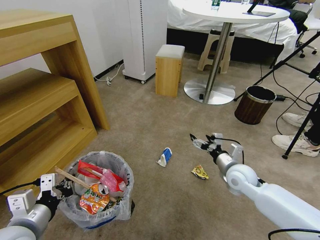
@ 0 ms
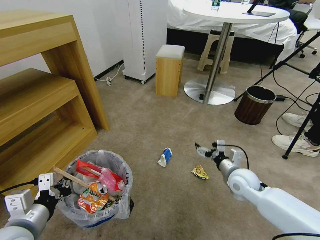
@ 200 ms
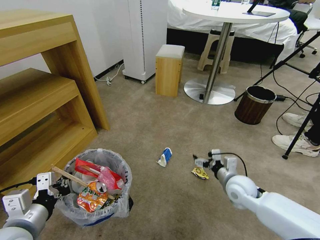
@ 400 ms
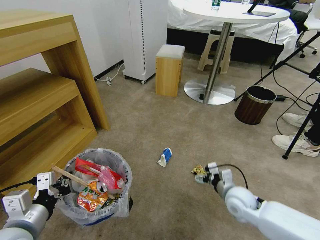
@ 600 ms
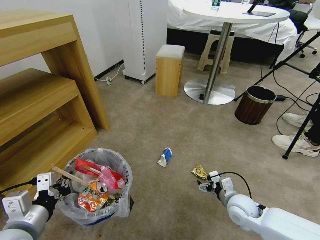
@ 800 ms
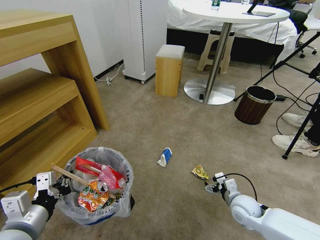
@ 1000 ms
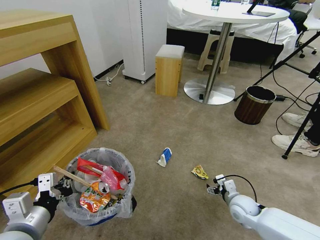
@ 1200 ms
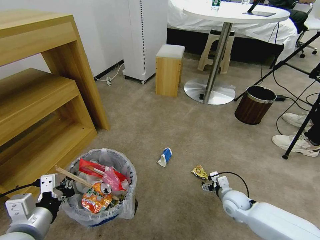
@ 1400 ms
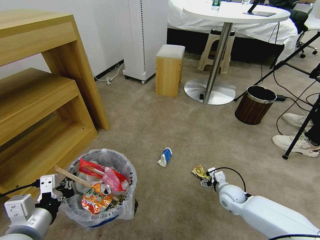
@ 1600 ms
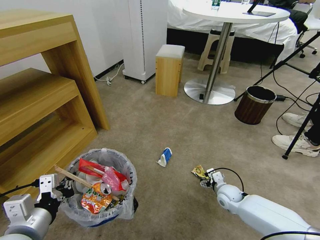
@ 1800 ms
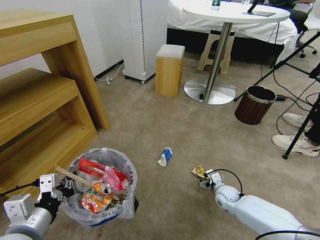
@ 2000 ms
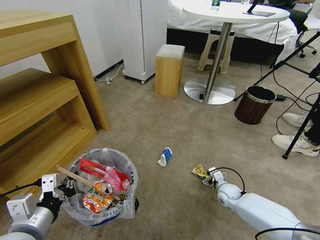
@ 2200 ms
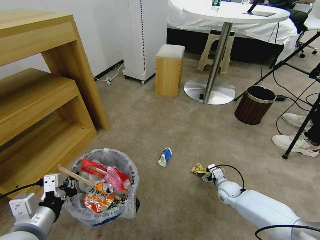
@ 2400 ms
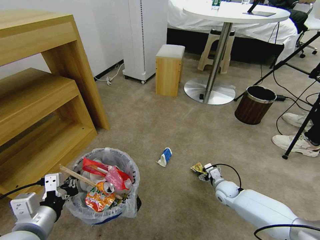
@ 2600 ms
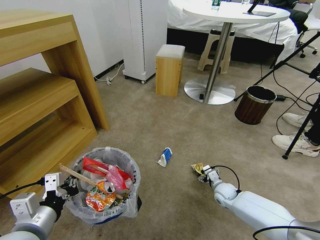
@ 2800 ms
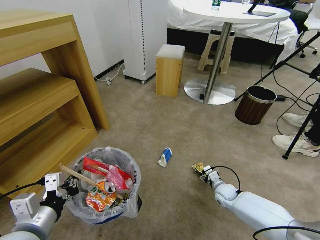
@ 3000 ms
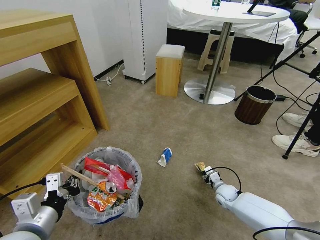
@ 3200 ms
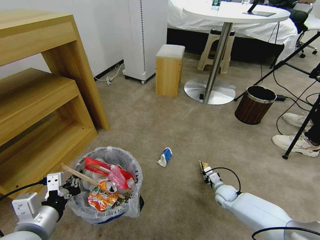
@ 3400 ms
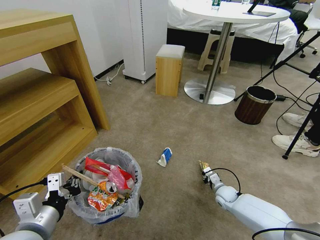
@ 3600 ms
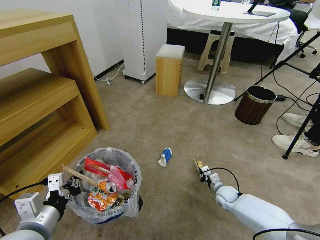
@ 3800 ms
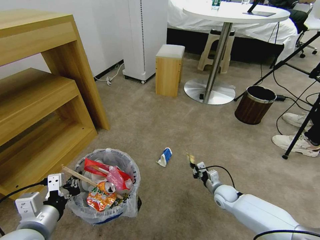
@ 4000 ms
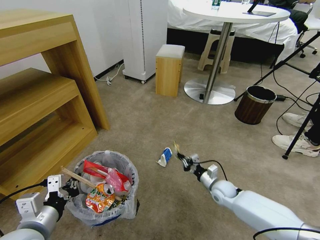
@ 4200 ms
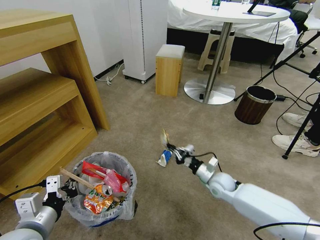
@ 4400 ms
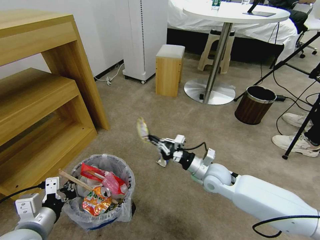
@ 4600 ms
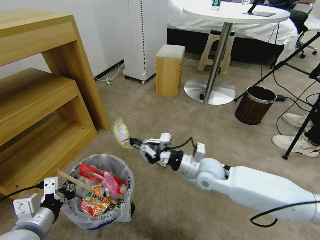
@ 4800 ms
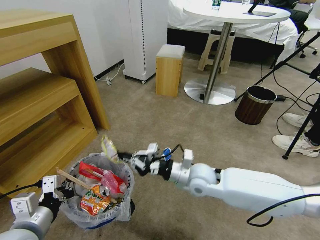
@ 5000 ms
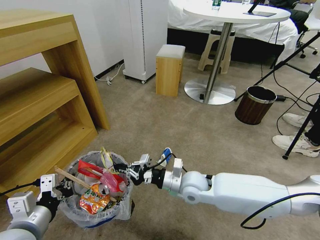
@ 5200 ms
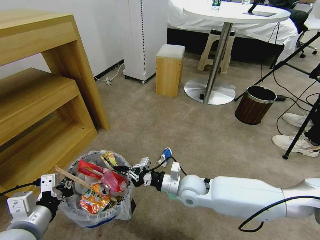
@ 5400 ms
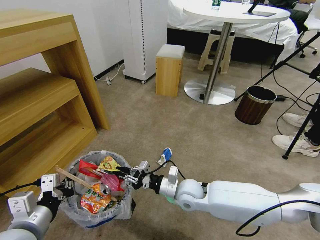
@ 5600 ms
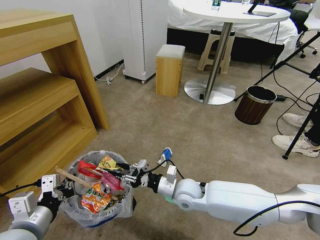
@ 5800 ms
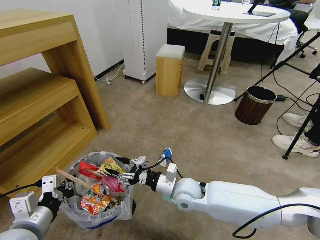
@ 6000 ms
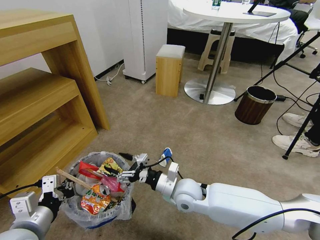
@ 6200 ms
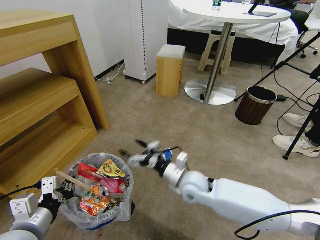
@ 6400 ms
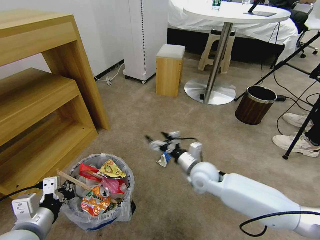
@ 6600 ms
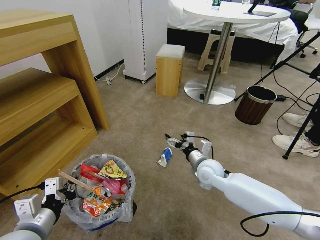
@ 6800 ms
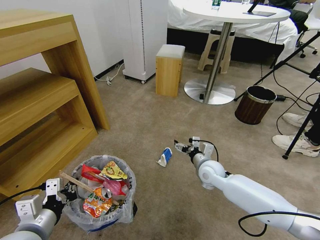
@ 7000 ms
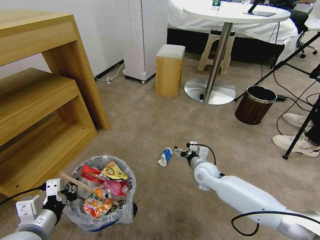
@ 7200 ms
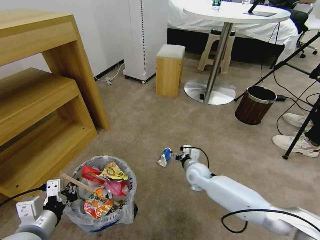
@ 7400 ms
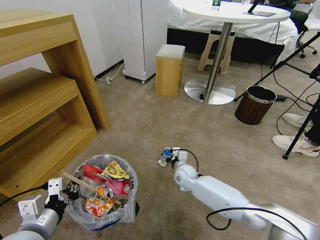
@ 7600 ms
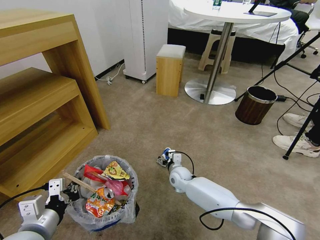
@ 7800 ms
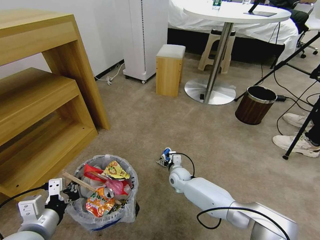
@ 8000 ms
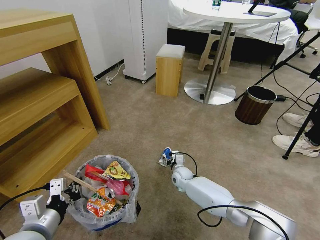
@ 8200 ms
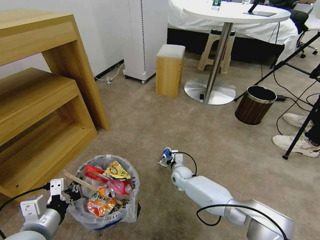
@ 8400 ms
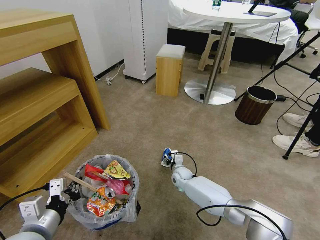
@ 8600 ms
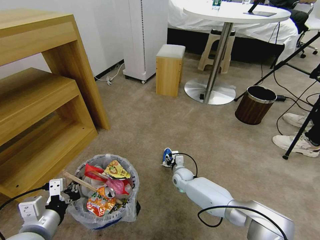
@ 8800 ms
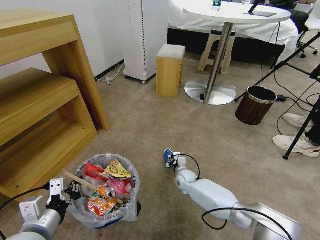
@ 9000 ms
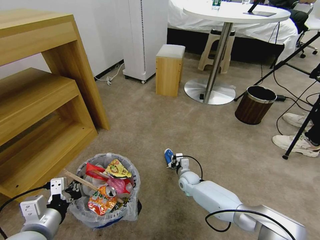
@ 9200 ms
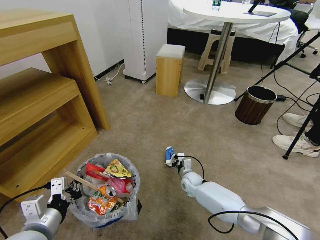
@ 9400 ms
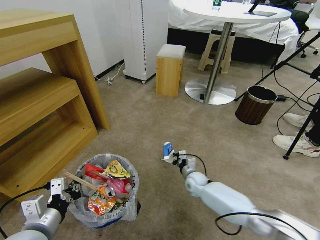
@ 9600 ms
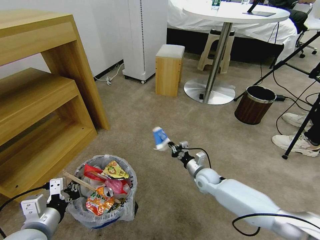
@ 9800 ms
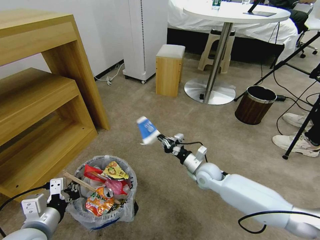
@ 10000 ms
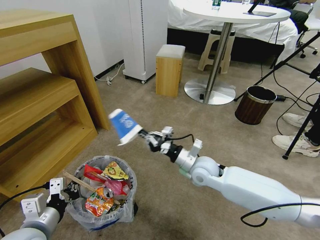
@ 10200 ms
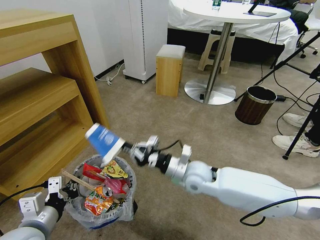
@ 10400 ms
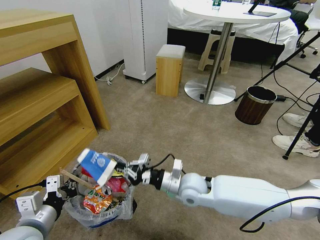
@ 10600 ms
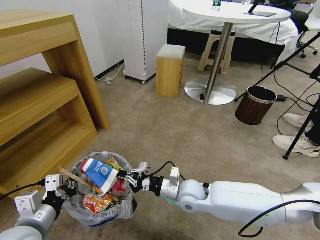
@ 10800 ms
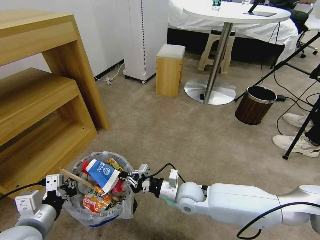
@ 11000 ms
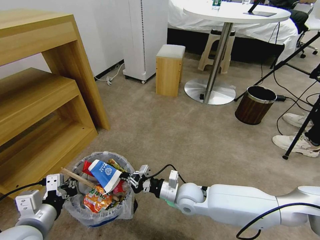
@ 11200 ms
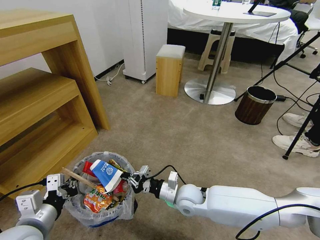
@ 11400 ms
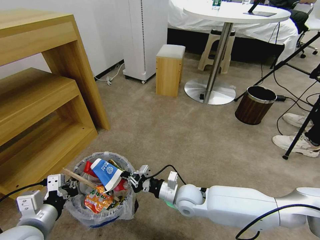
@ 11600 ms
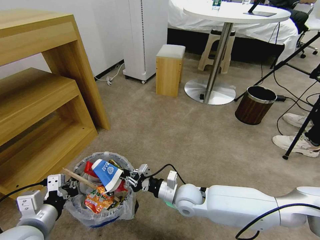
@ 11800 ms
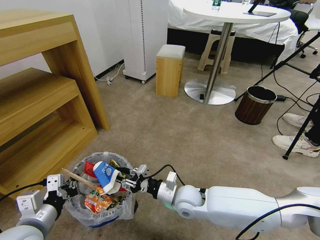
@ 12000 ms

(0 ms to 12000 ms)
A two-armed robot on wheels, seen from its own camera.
Task of the whole recording: Pick up the trash bin and place the garbage on the floor into it.
0 ms - 1600 ms: The right gripper moves downward, approximately 15 cm.
1600 ms - 3000 ms: The right gripper shifts approximately 5 cm downward, and closes its fingers.
3000 ms - 4400 ms: The right gripper travels upward and to the left by roughly 10 cm, and closes up.
4400 ms - 6000 ms: The right gripper is displaced to the left and upward by roughly 20 cm, and opens up.
6000 ms - 7600 ms: The right gripper travels forward and downward by about 15 cm.
7600 ms - 9000 ms: The right gripper travels downward by roughly 5 cm, and closes up.
9000 ms - 10400 ms: The right gripper is displaced upward and backward by some 25 cm, and closes its fingers.
10400 ms - 12000 ms: The right gripper is displaced downward by about 5 cm, and opens.

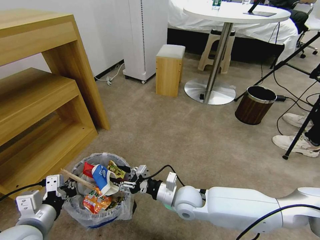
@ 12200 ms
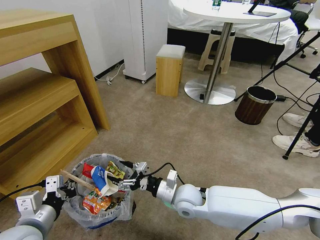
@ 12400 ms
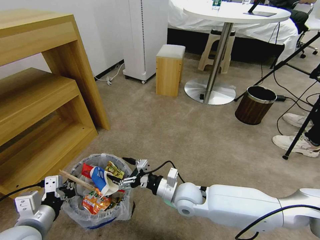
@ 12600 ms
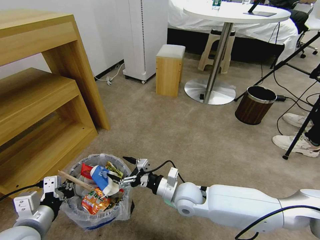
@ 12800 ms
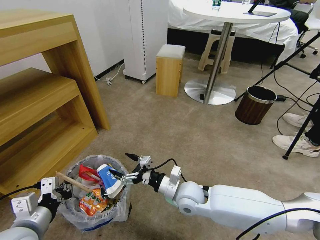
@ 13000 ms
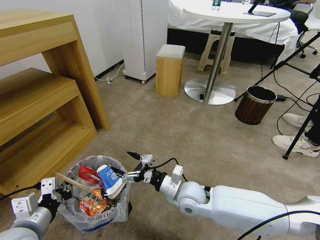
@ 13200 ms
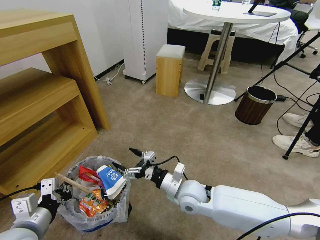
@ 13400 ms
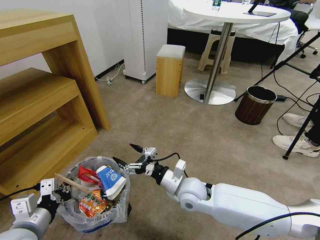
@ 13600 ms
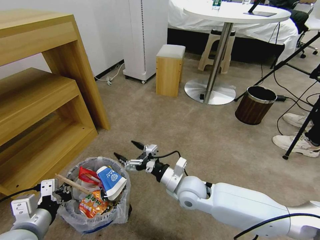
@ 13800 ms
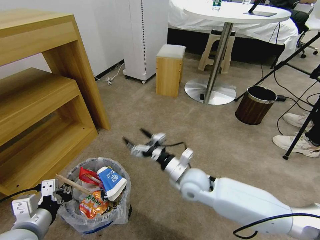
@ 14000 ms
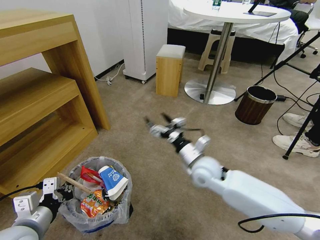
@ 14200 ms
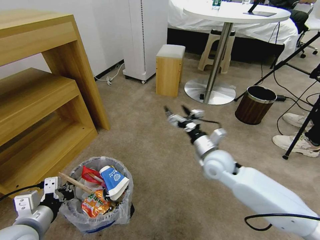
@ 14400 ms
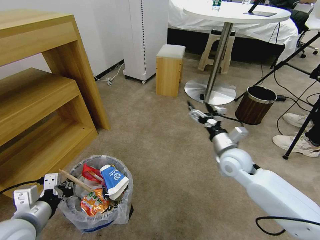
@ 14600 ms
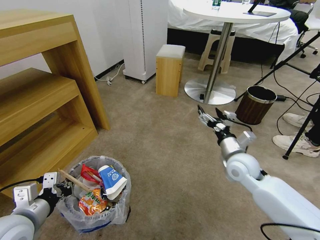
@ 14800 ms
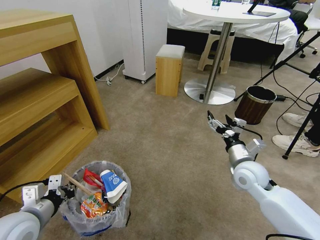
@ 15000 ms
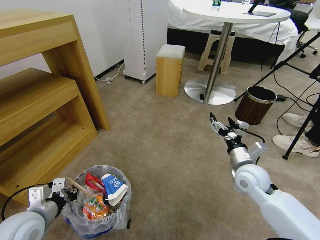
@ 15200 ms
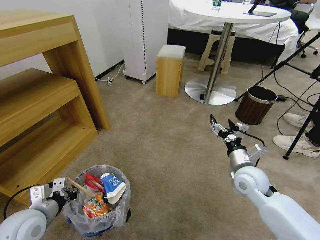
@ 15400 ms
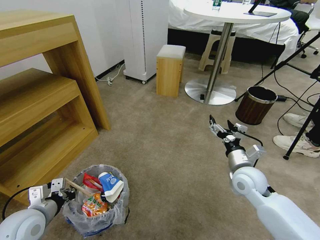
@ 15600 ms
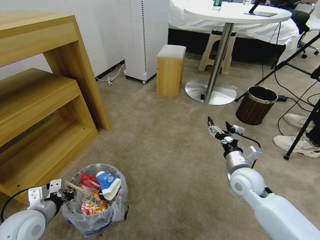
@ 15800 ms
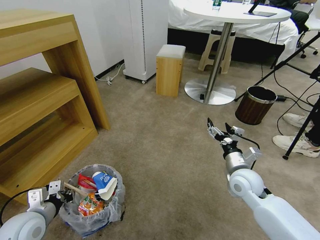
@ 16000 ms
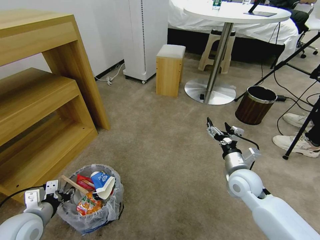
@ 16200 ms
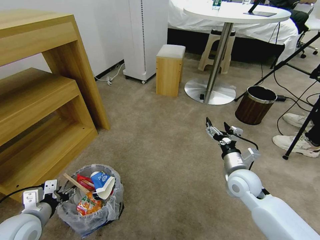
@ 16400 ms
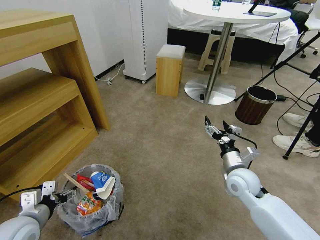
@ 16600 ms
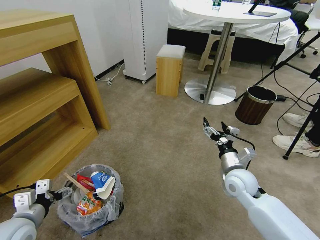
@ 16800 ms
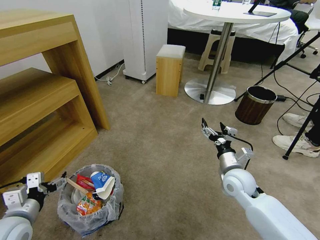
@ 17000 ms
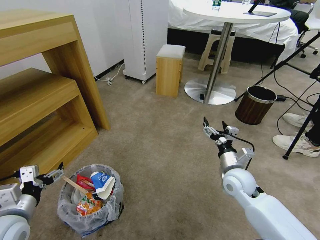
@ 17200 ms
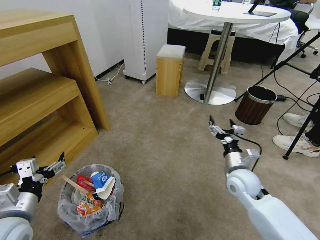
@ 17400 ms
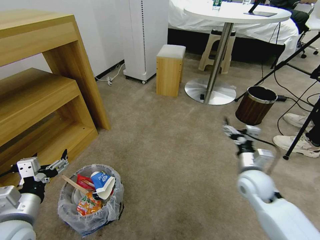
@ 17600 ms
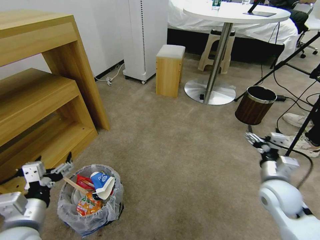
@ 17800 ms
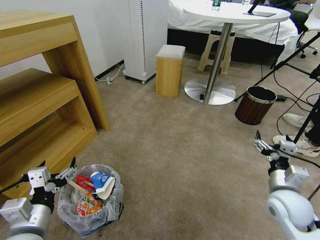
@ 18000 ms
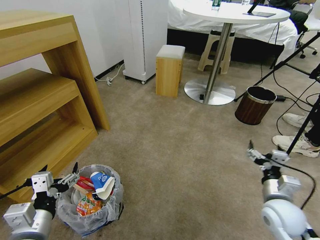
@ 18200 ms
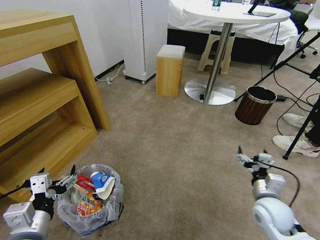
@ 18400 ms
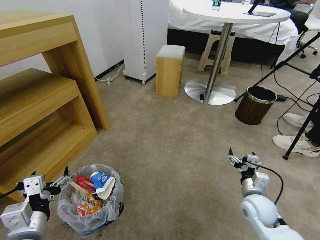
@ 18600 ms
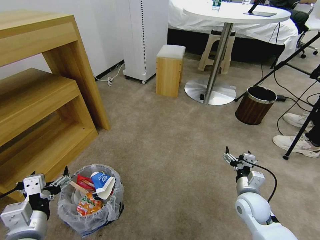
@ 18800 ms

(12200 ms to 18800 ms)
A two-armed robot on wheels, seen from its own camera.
Task of the whole recording: Pick up the trash bin and place the garbage on the floor into it.
12200 ms - 13800 ms: The right gripper opens.
13800 ms - 15400 ms: The left gripper heads forward, covering about 5 cm. Meanwhile the right gripper travels to the right by approximately 20 cm.
15400 ms - 17200 ms: The left gripper opens up.
17200 ms - 18800 ms: The left gripper moves to the right and backward, some 10 cm. Meanwhile the right gripper travels downward and backward by some 10 cm.

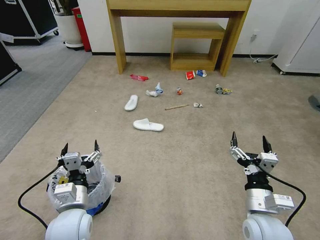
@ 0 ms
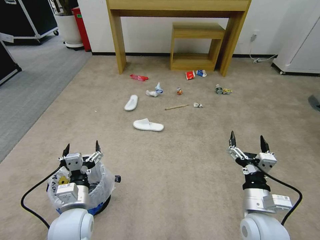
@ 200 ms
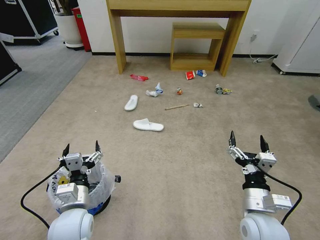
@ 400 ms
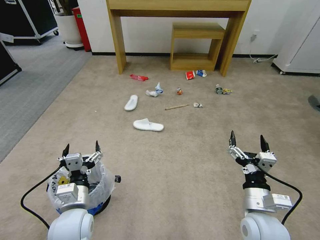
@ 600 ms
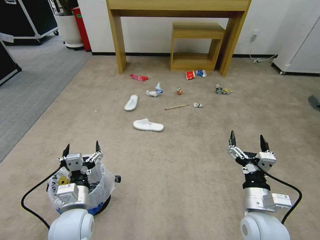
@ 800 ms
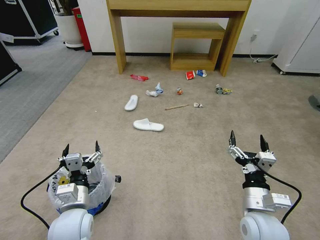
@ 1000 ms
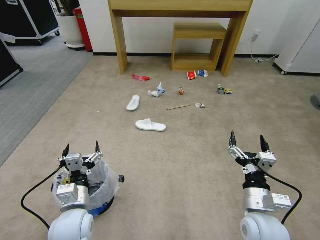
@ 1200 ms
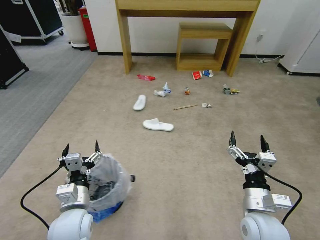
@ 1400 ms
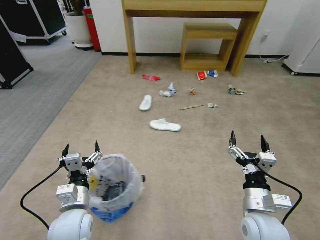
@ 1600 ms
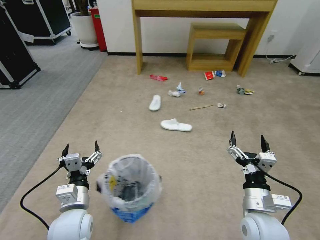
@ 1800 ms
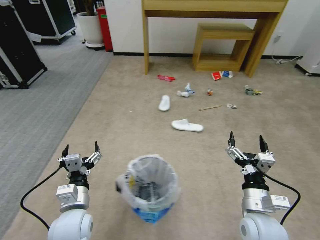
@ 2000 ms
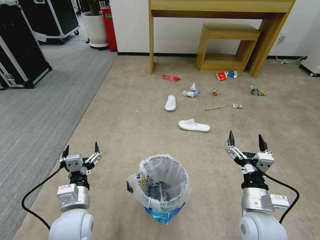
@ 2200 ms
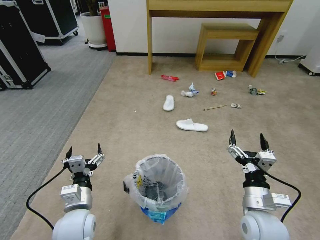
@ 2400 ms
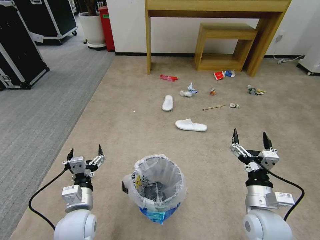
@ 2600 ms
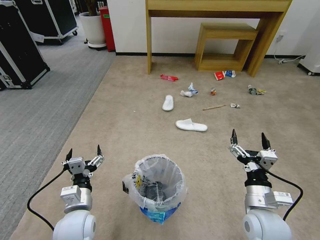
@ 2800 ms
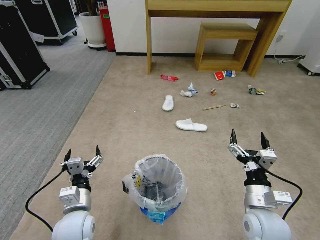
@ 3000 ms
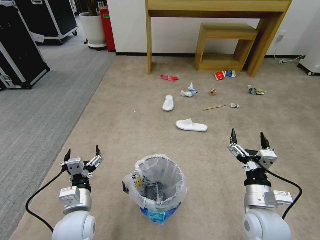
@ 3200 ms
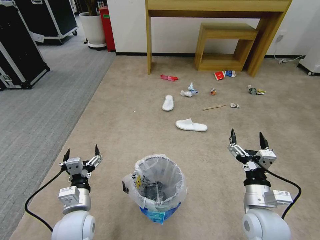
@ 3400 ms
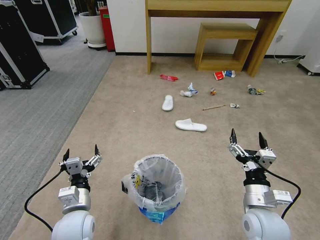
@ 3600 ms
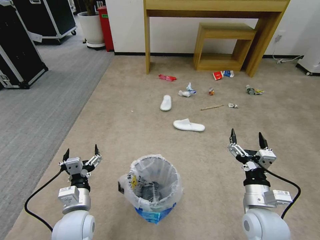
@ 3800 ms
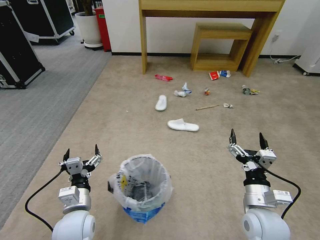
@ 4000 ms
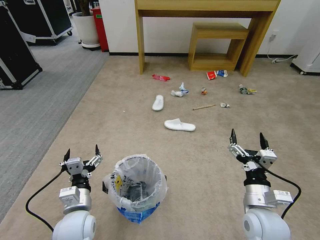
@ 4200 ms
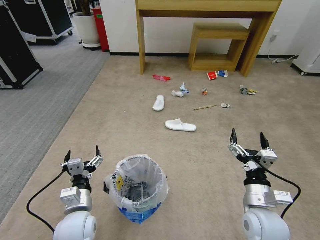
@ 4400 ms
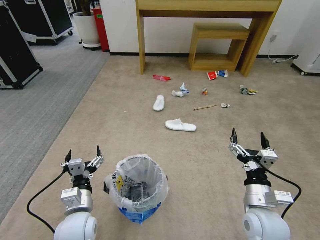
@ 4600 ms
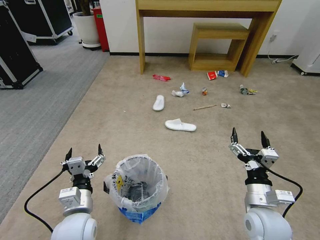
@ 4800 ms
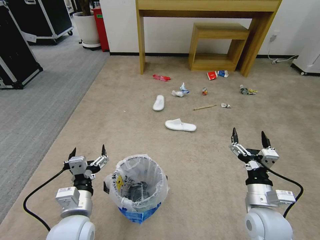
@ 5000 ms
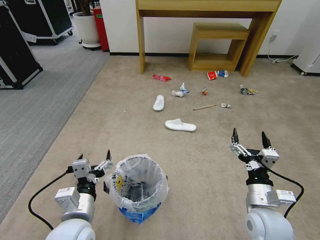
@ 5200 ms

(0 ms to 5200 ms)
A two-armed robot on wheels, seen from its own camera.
Task of the whole recording: Pick up the trash bin and place the garbage on the floor into it.
3400 ms - 5200 ms: The left gripper goes roughly 5 cm upward.
